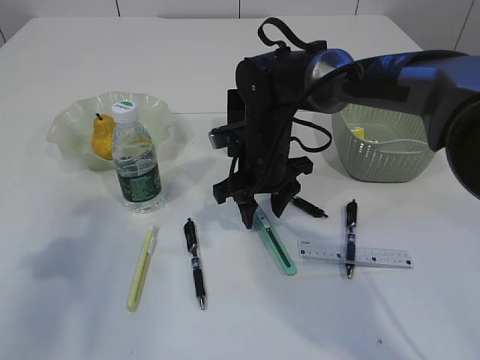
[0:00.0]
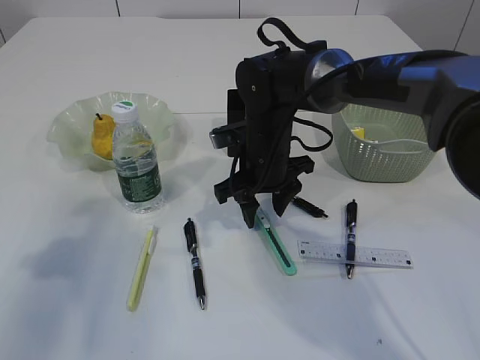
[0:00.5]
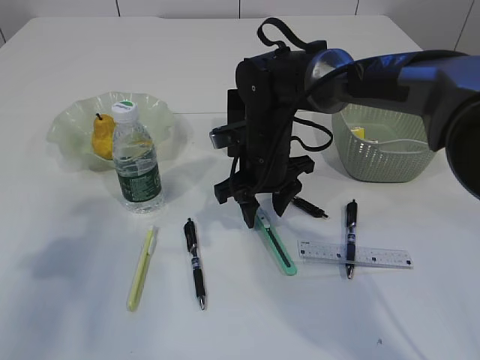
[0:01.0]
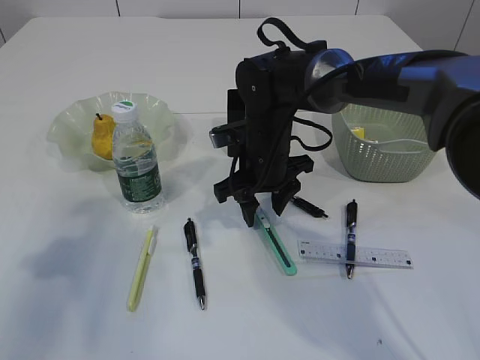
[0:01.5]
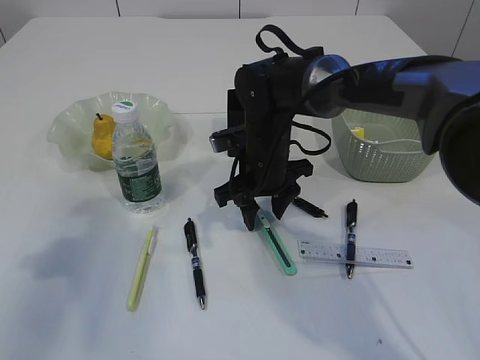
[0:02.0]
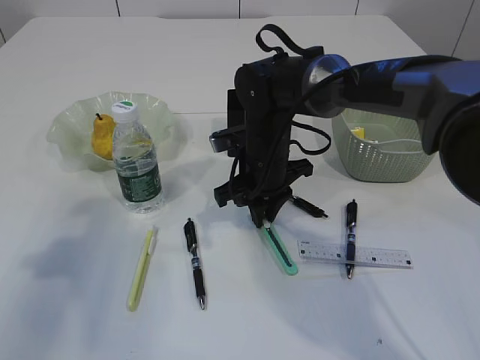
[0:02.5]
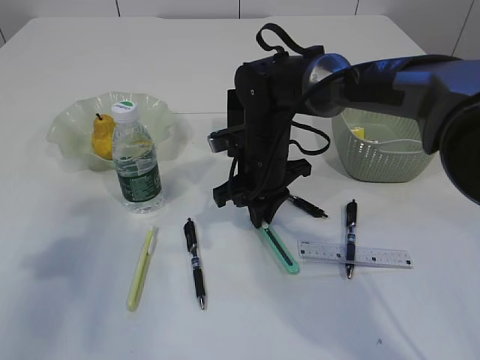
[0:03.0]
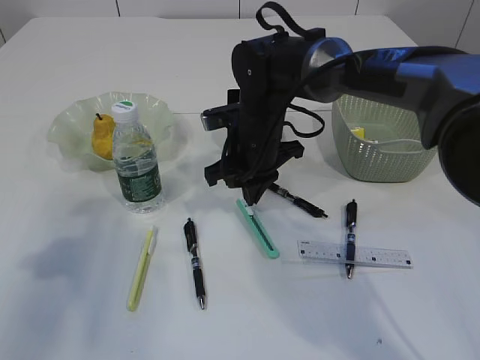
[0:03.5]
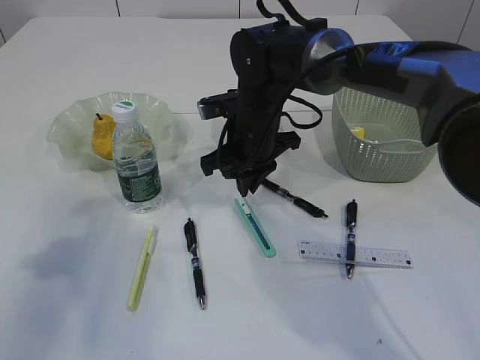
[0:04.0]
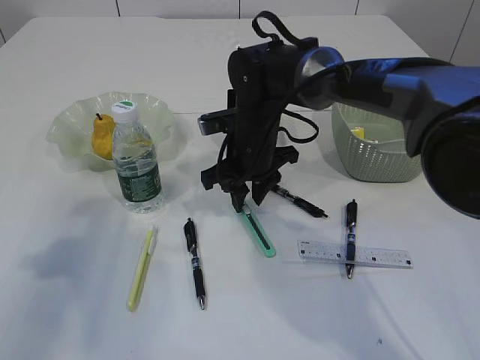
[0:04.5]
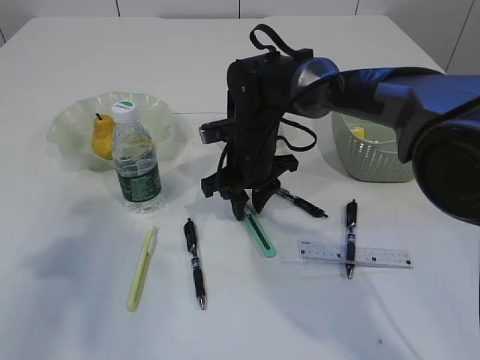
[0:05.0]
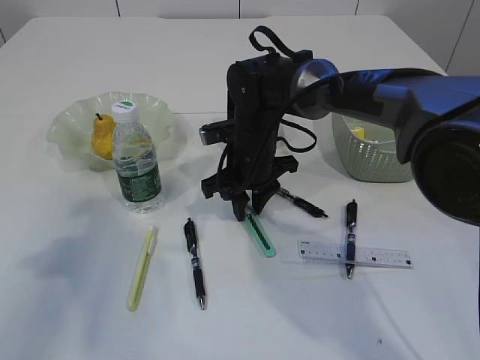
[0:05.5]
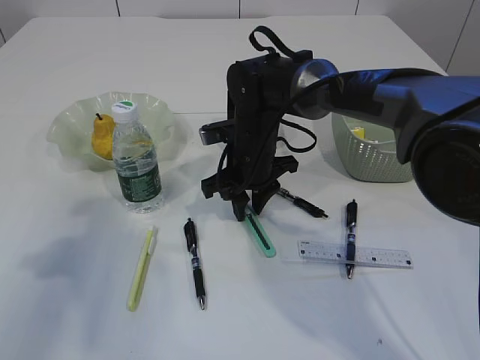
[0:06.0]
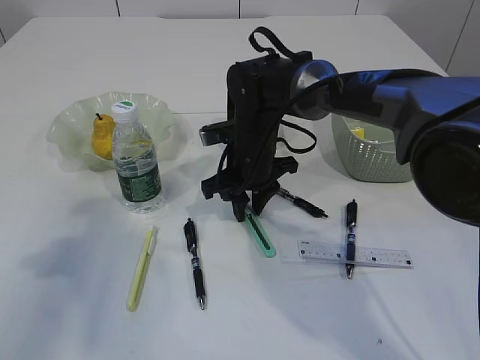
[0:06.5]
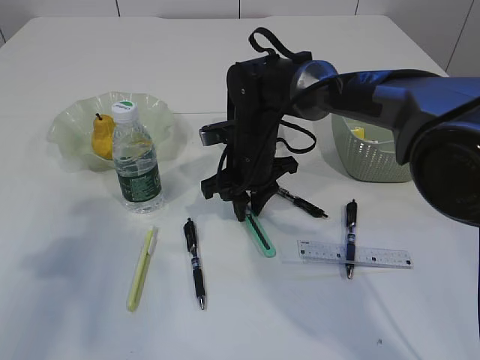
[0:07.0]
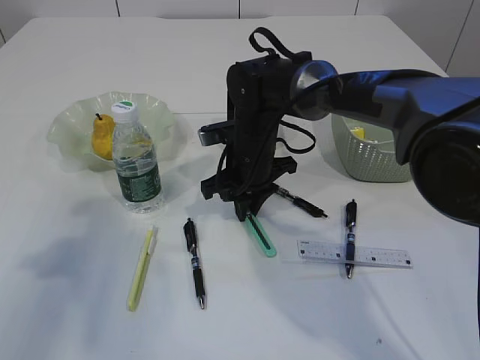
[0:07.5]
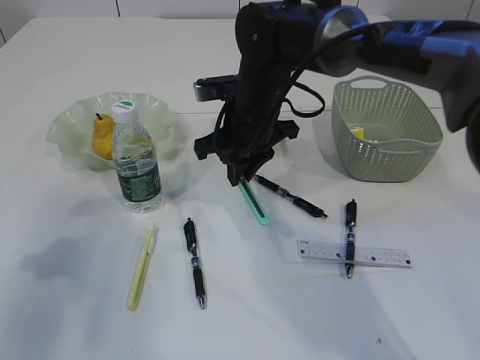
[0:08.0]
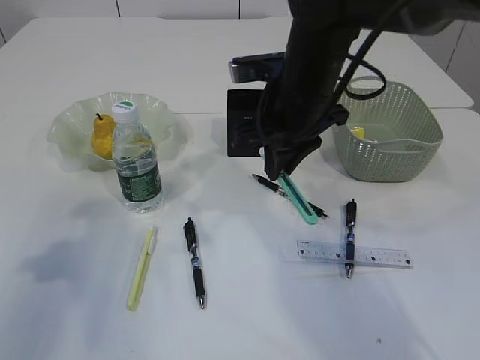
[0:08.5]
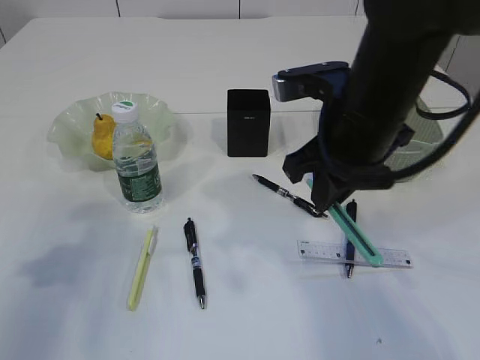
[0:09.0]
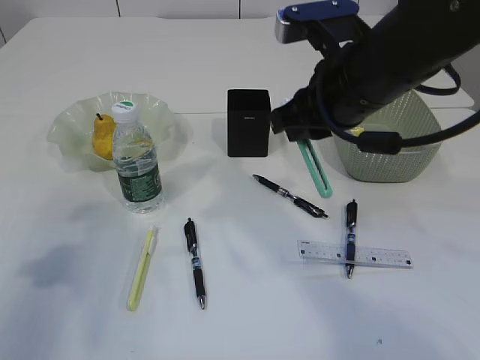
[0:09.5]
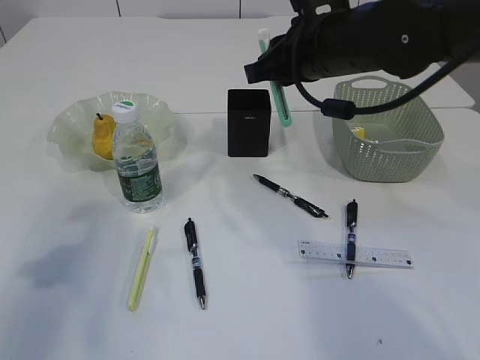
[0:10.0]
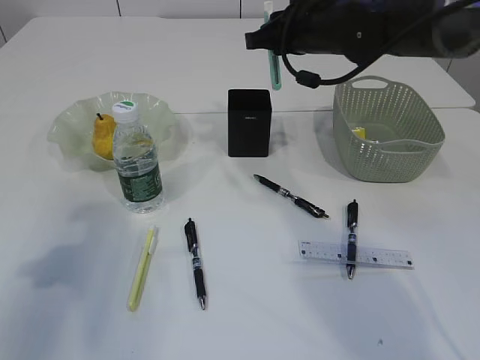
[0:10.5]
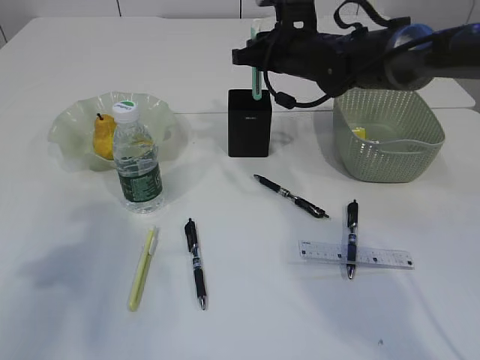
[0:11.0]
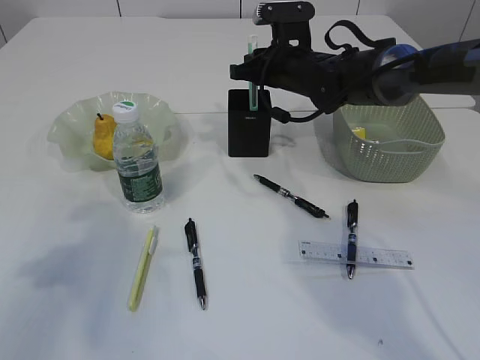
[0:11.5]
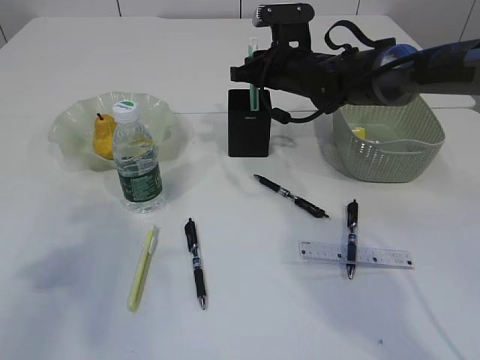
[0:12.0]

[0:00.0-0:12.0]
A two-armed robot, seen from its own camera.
Step, 0:00.0 to 0:08.5: pick up the blue knife.
0:00.0 to 0:02.0: Both grippers stay about where they are.
0:02.0 to 0:04.0: The right gripper closes up.
0:04.0 to 0:06.0: The right gripper opens up.
0:06.0 to 0:08.0: The right gripper is displaced upward by some 5 cm.
0:08.0 to 0:10.0: The right gripper heads upward and to the right, covering some 10 cm.
0:10.0 to 0:12.0: The right gripper heads forward and downward, covering about 15 cm.

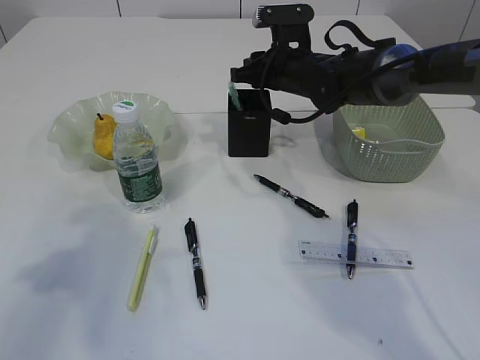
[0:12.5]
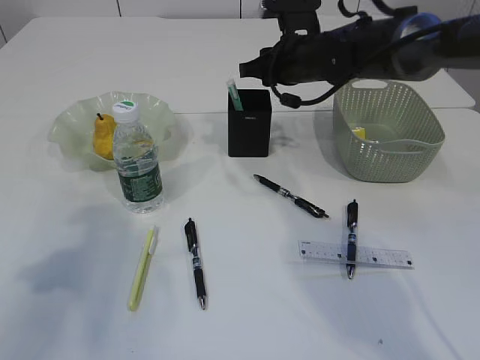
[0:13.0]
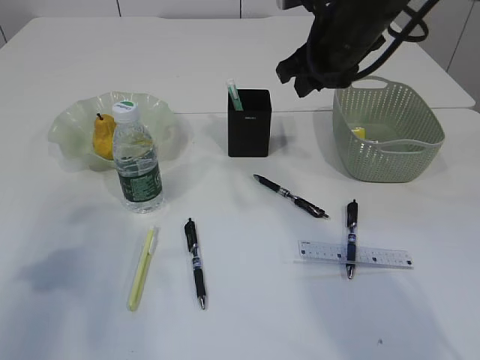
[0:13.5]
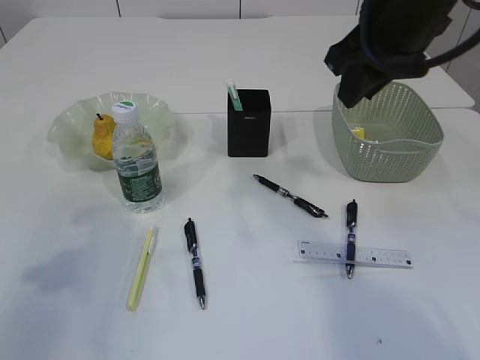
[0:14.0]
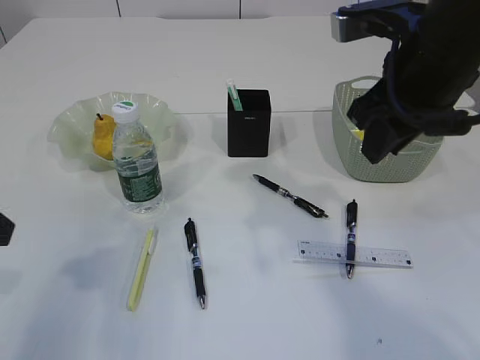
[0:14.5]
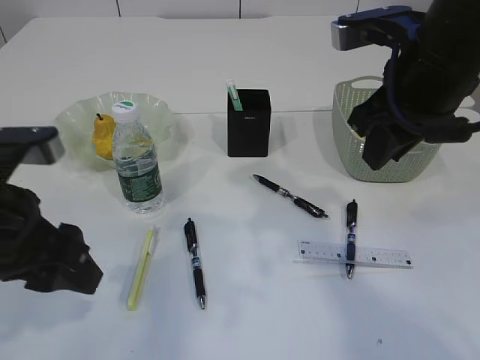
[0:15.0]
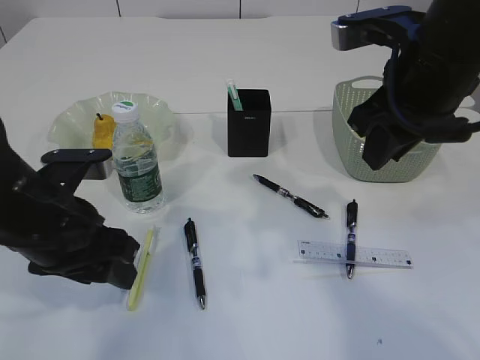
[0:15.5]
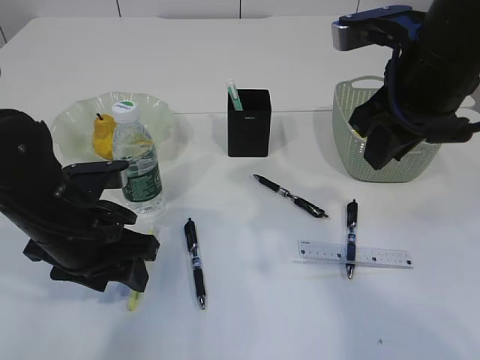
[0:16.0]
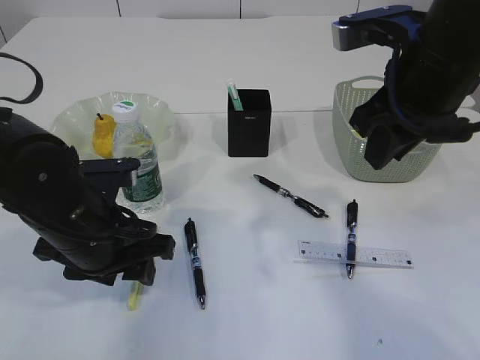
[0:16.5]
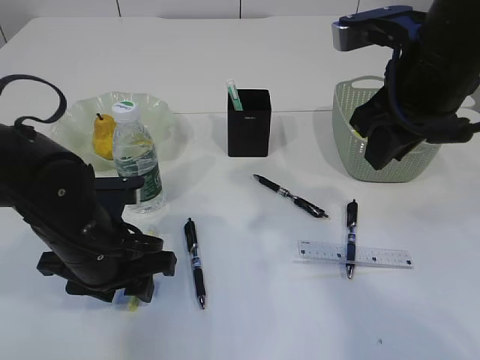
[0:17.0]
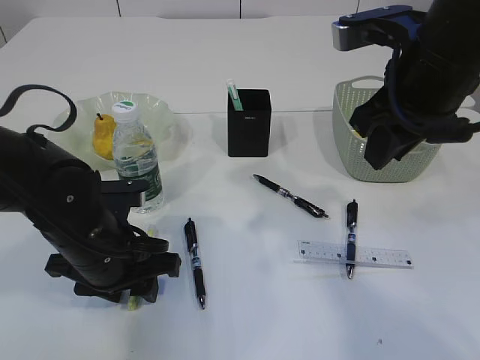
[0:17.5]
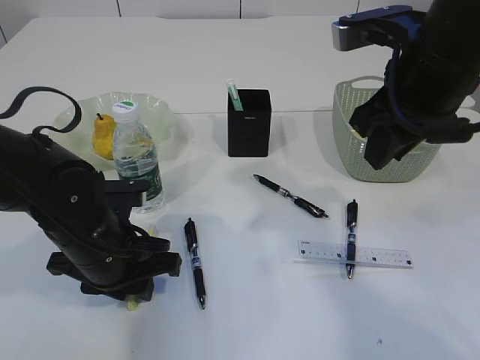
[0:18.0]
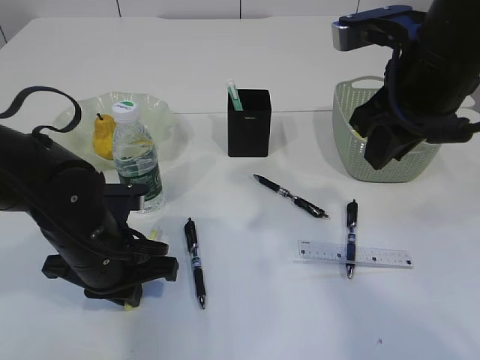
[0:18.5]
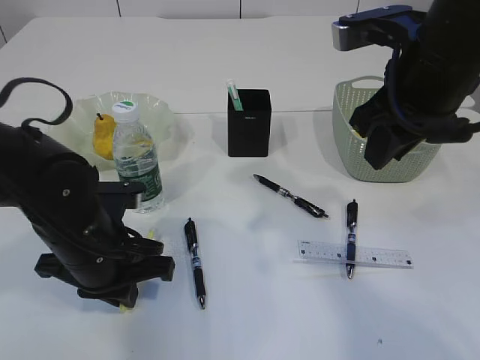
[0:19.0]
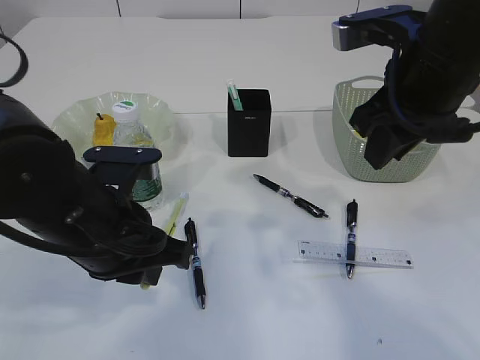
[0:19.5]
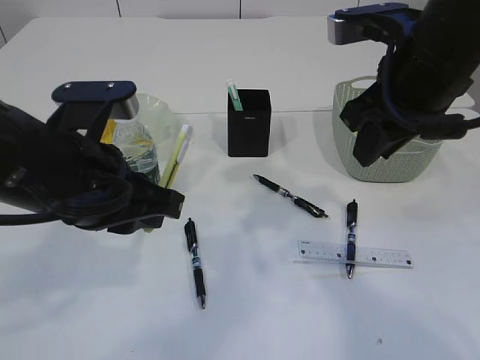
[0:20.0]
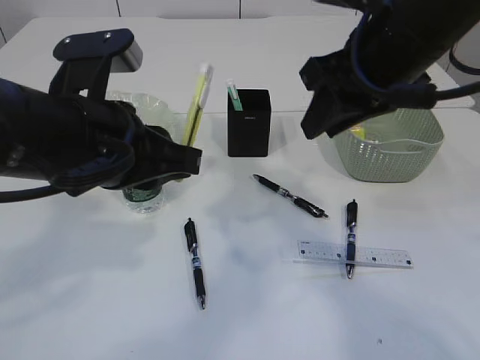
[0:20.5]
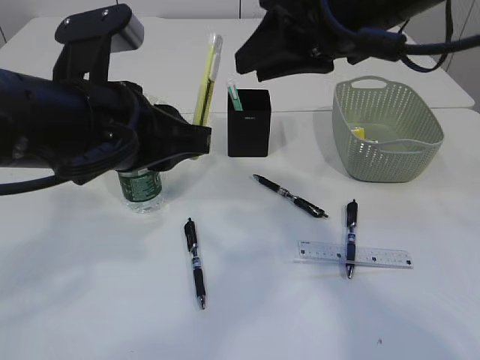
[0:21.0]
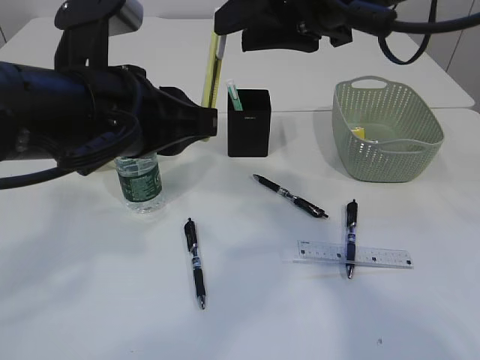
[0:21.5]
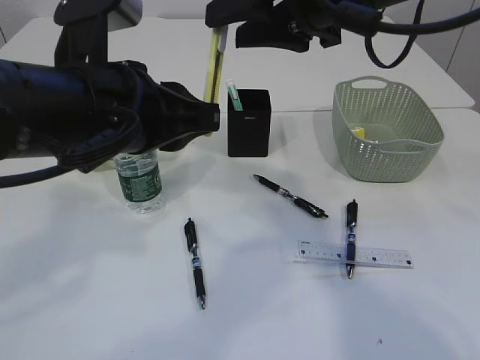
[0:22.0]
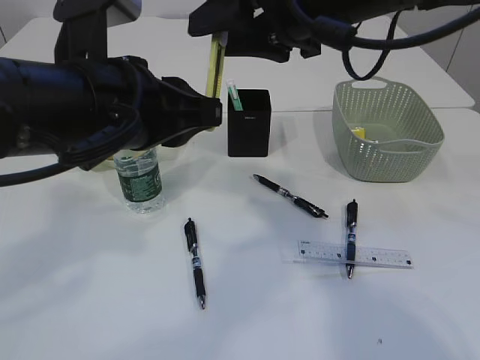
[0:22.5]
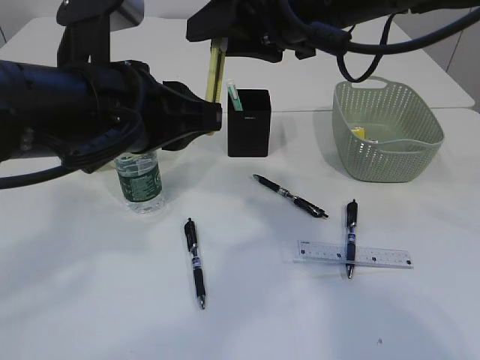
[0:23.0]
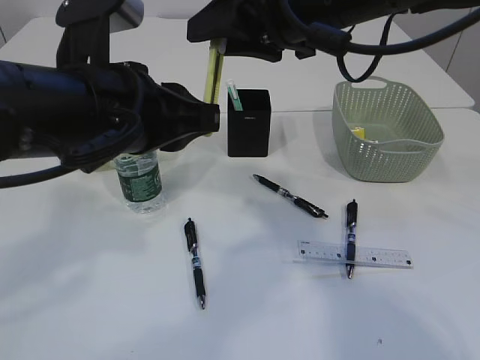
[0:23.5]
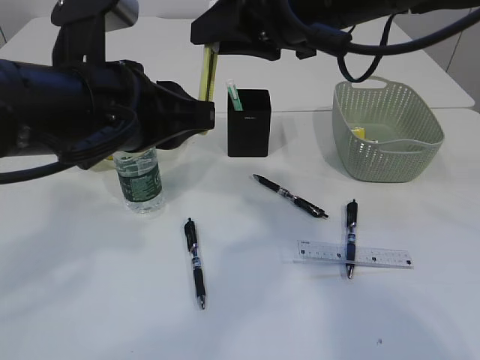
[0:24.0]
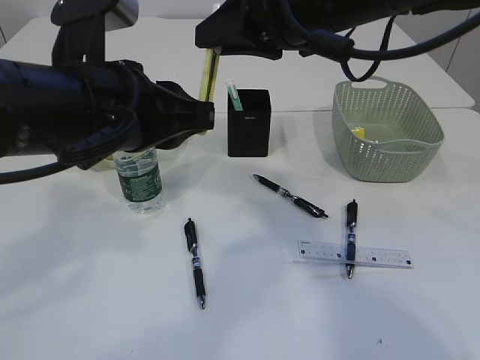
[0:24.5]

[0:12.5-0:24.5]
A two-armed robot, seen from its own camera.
Step, 0:14.0 to 0:19.5: pick up the yellow knife.
0:12.5 to 0:14.5: The right gripper moves backward and upward, approximately 25 cm.
0:14.5 to 0:16.5: The left gripper travels to the right and downward by some 20 cm.
0:16.5 to 0:18.5: The left gripper closes its fingers.
0:18.5 to 0:20.5: The left gripper is displaced upward by roughly 15 cm.
0:20.5 to 0:22.5: The right gripper heads to the left, covering about 5 cm.
0:22.5 to 0:24.5: The right gripper closes up.

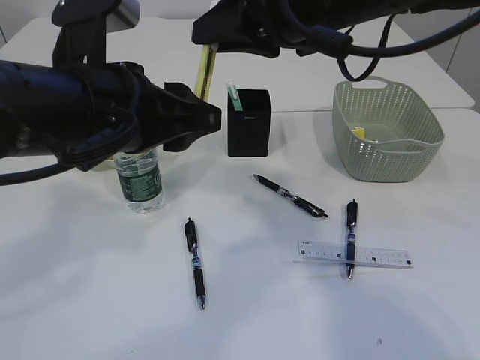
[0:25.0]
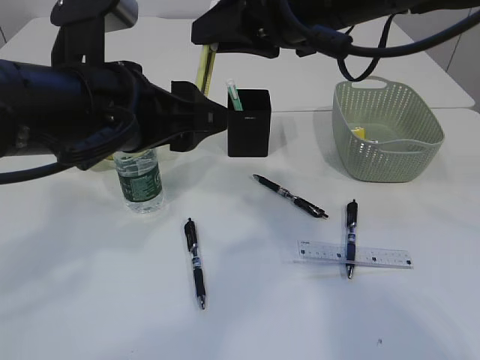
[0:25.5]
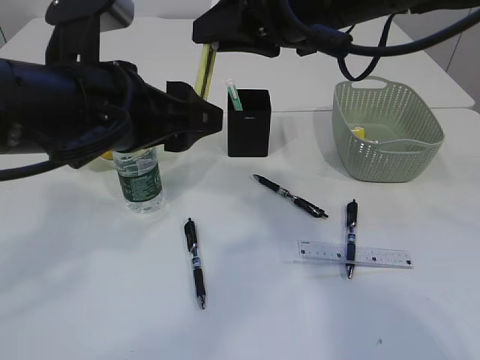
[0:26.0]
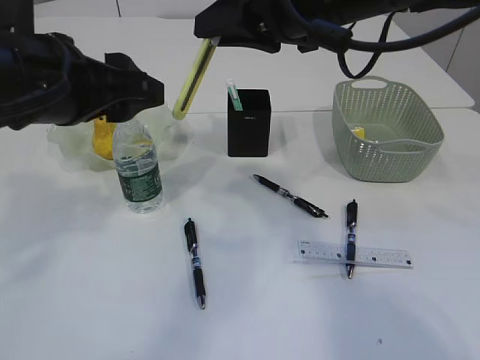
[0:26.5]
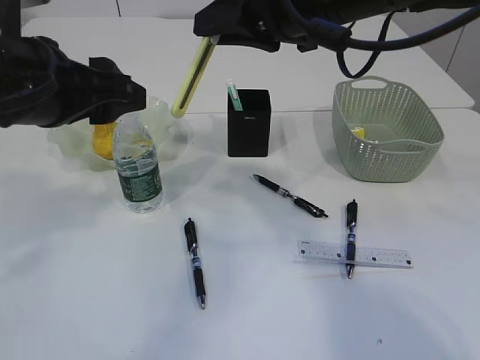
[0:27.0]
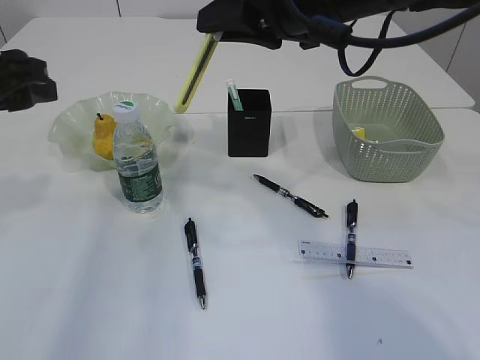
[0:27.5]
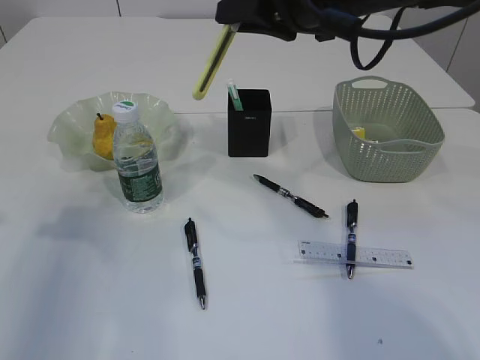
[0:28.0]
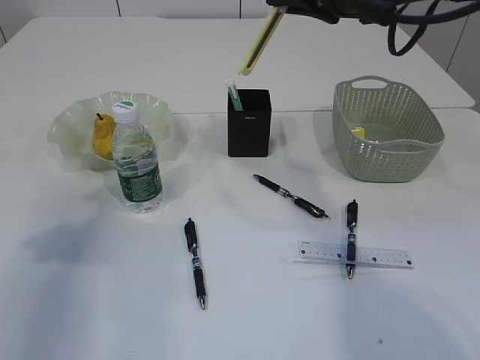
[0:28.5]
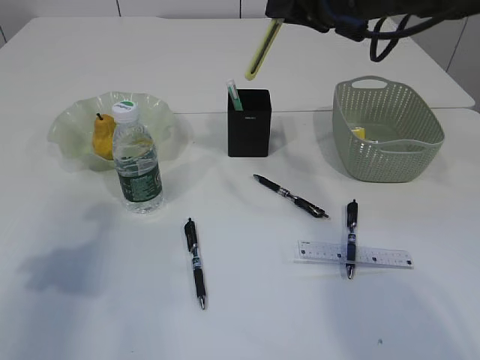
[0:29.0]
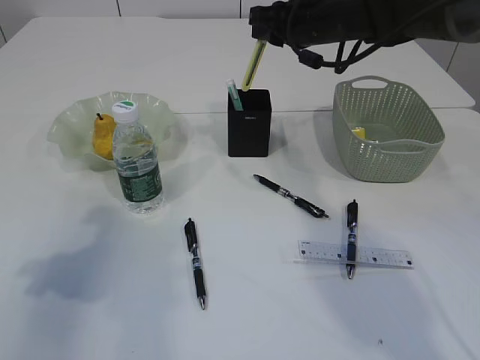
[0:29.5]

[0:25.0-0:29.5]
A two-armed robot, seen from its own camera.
Step, 0:25.0 to 0:27.0: Hand over the yellow knife.
0:25.0 to 0:27.0: The left gripper travels to the left by some 5 cm.
0:27.0 to 0:29.5: The right gripper moves forward and downward, roughly 15 cm, while the left gripper travels to the left and downward by approximately 15 cm.
